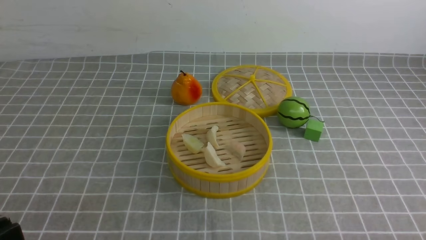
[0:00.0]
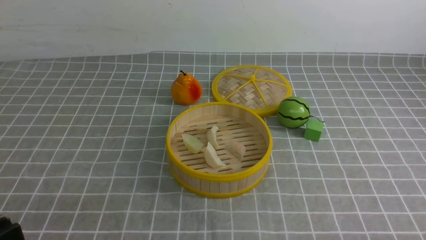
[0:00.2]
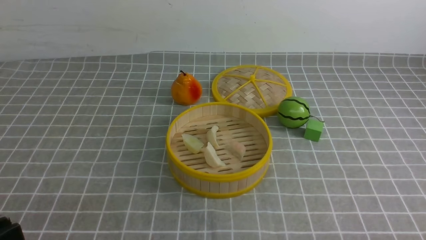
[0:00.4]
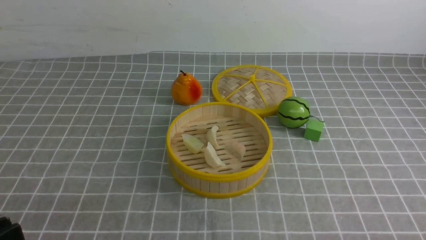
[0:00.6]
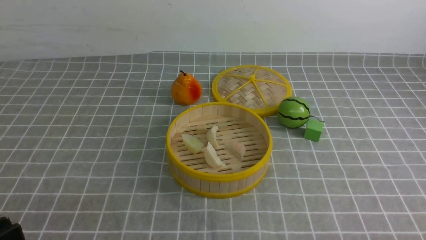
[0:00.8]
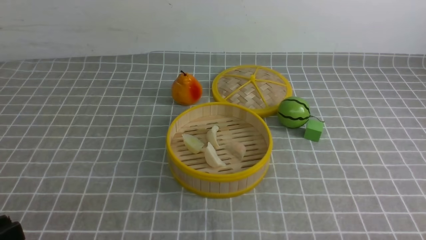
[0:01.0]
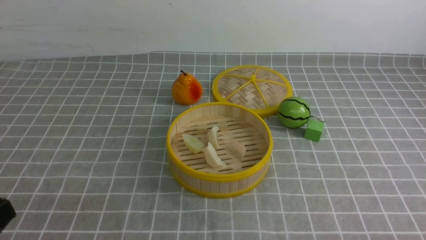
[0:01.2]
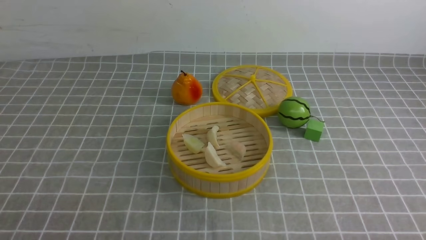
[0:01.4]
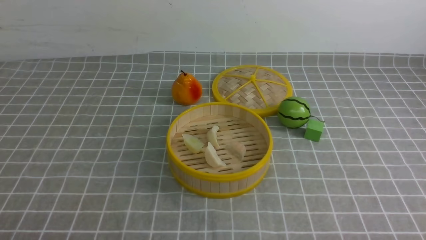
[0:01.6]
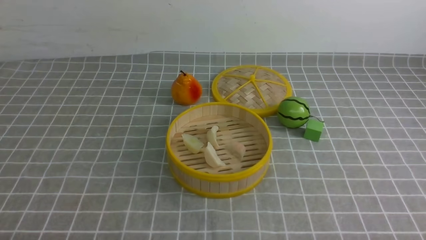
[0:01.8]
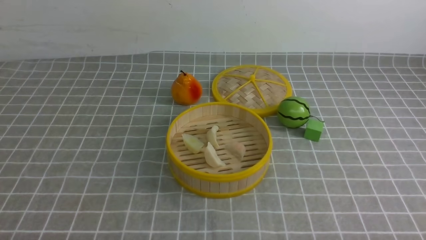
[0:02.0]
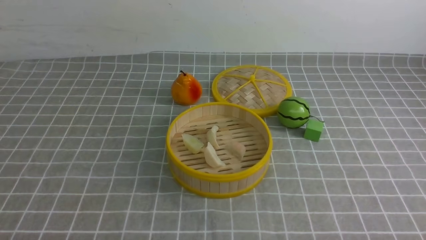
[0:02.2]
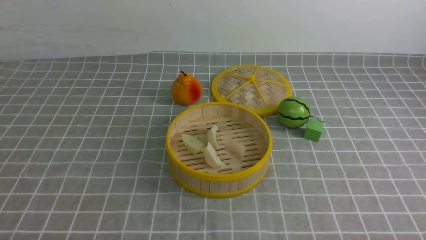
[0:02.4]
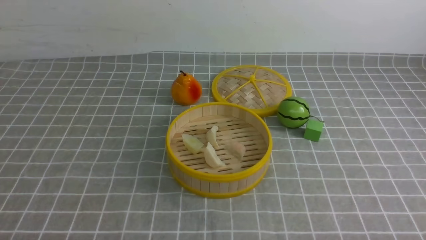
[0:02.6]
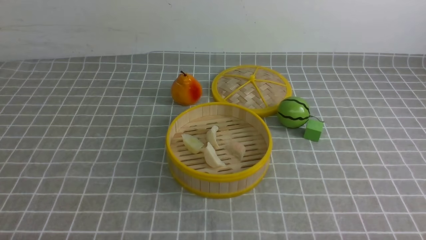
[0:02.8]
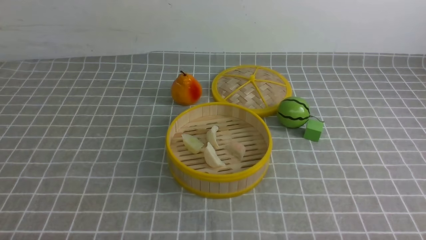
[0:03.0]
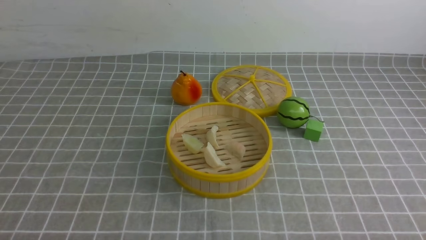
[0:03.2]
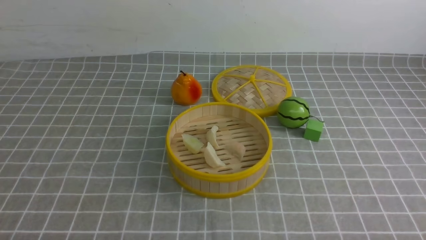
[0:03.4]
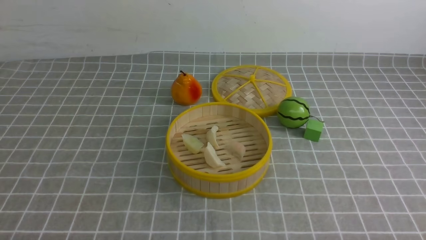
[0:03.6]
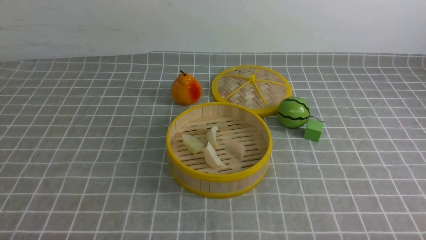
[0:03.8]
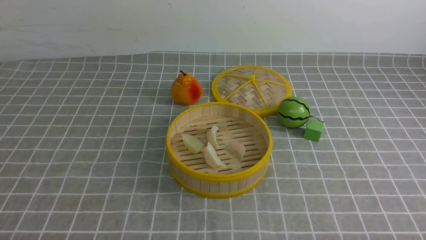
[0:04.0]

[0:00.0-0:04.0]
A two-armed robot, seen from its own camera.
Task of the whole recording: put the dumplings into the steamer on the table with the grey tablecloth.
0:02.6 to 0:04.0: The two grippers keep their place.
